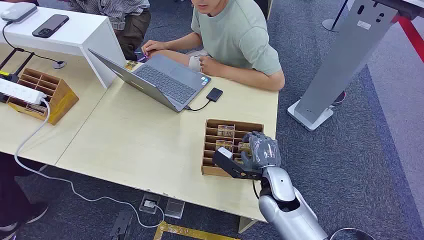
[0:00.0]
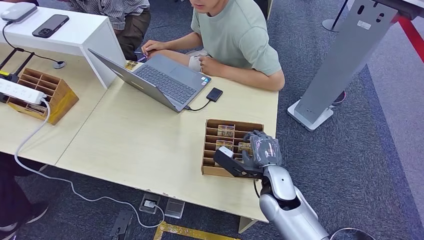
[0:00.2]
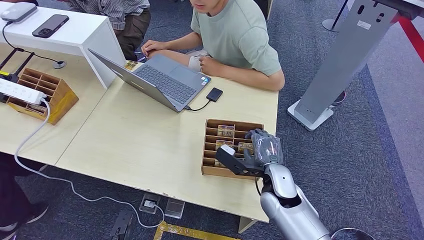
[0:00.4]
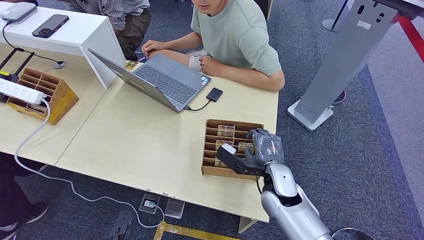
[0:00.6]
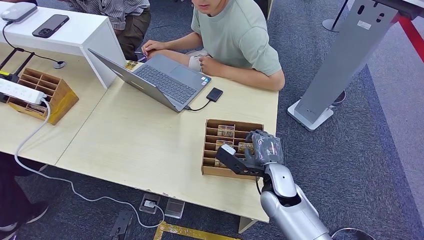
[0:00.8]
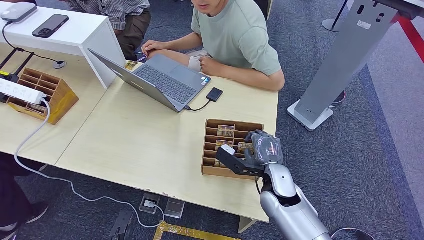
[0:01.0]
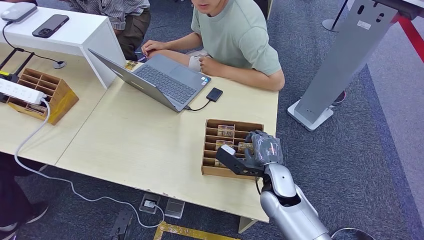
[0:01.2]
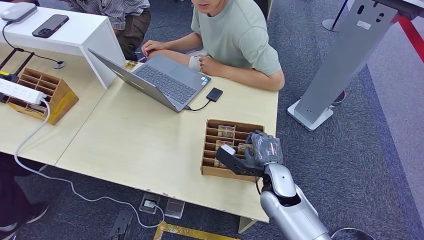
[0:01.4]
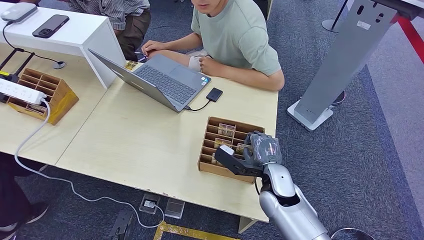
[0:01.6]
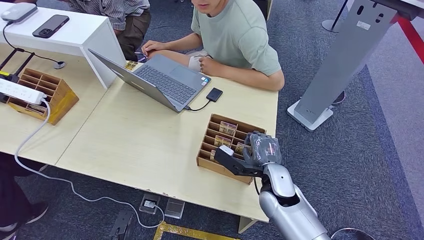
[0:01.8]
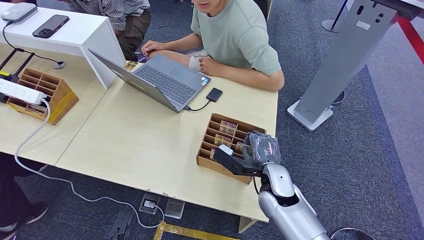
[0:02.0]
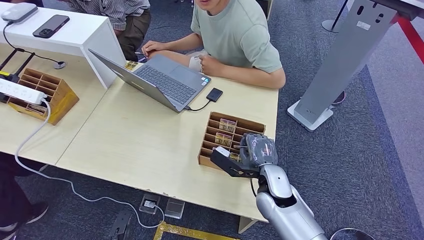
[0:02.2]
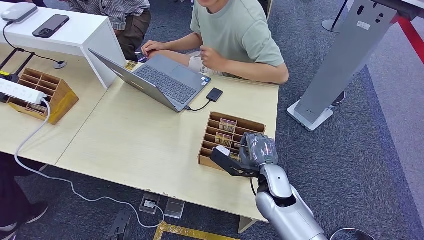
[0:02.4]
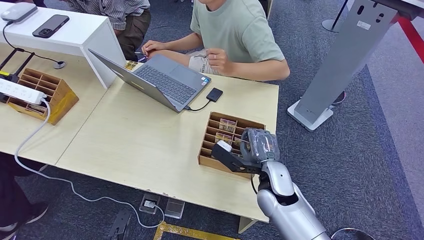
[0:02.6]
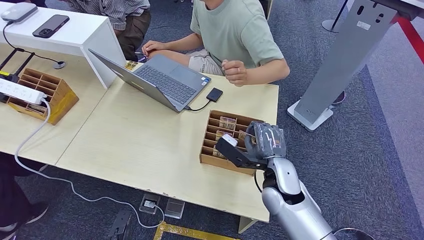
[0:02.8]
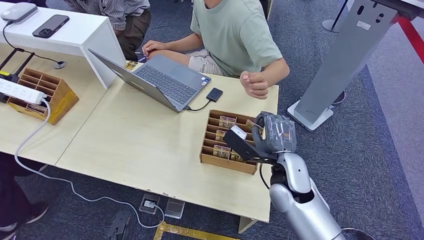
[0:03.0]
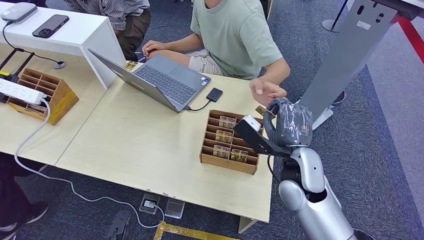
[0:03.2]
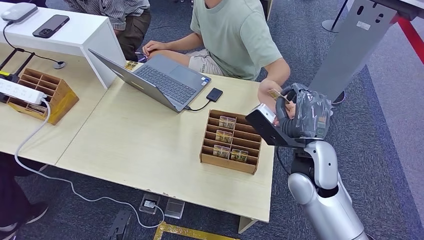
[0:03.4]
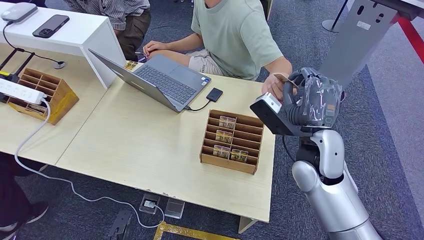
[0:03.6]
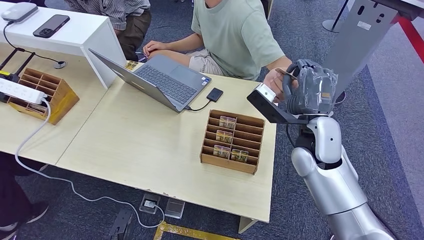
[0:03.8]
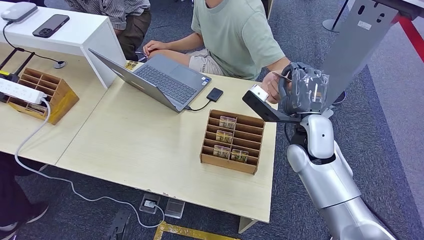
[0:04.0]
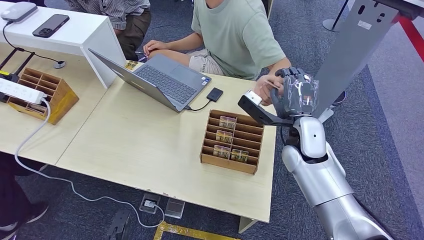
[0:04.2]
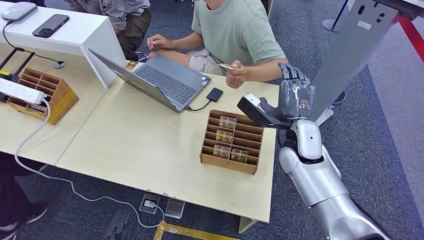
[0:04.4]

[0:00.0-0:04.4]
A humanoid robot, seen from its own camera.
Step, 0:00.0 to 0:02.8: Pick up the key card from the card box.
Step, 0:03.4 to 0:04.4: Hand the key card to the target.
0:01.4 to 0:03.0: The right hand heads upward, covering roughly 5 cm.
0:03.0 to 0:04.4: The right hand shifts about 5 cm forward.
